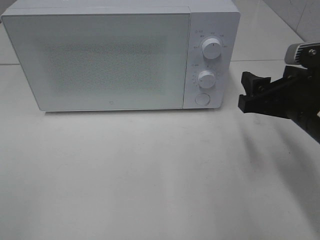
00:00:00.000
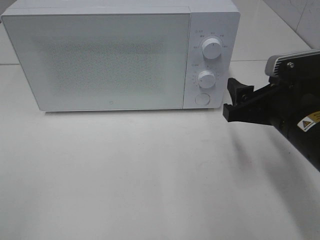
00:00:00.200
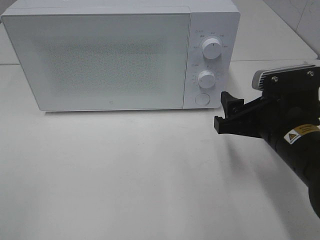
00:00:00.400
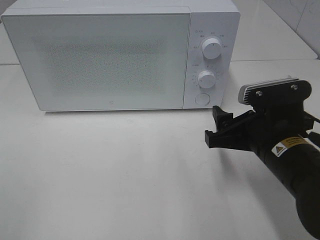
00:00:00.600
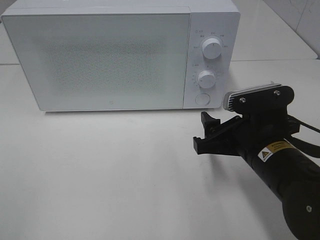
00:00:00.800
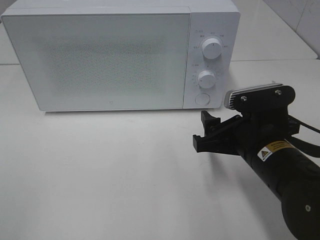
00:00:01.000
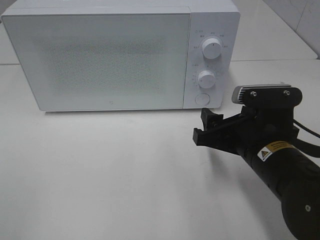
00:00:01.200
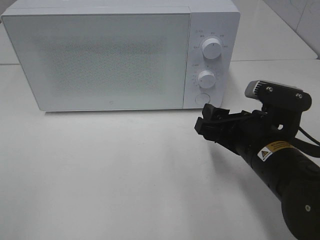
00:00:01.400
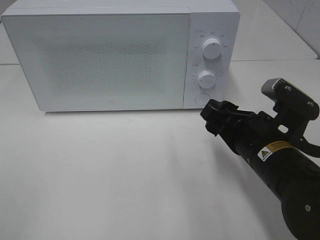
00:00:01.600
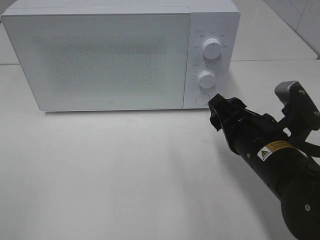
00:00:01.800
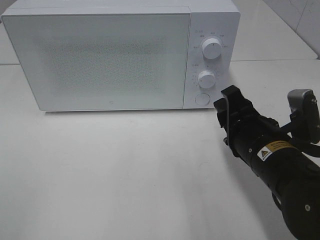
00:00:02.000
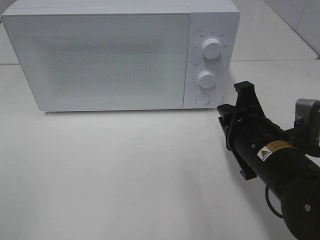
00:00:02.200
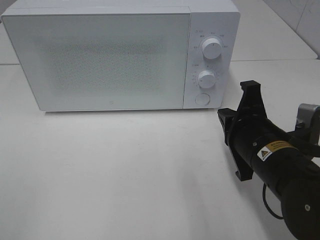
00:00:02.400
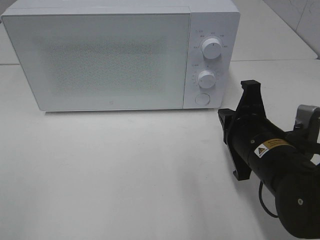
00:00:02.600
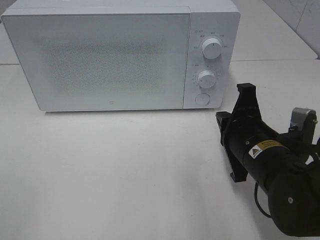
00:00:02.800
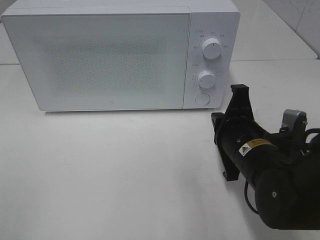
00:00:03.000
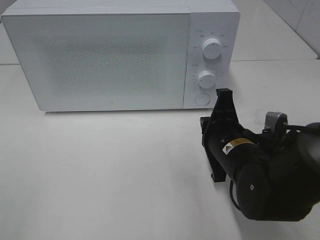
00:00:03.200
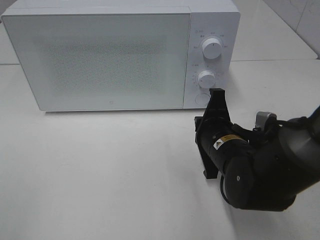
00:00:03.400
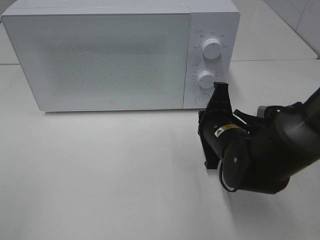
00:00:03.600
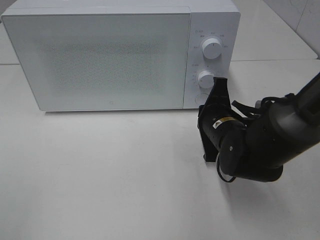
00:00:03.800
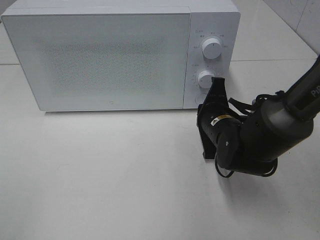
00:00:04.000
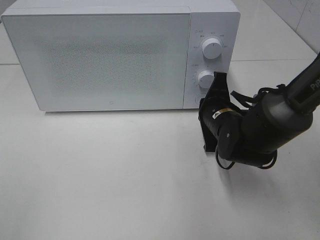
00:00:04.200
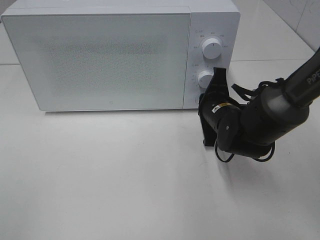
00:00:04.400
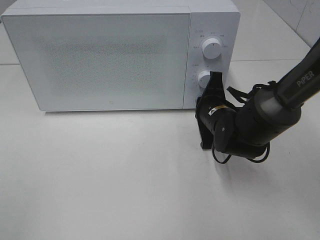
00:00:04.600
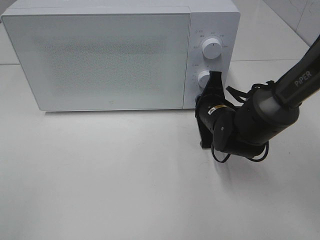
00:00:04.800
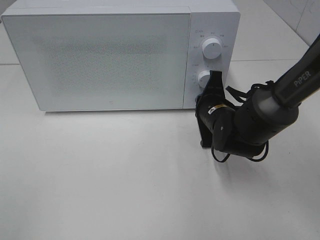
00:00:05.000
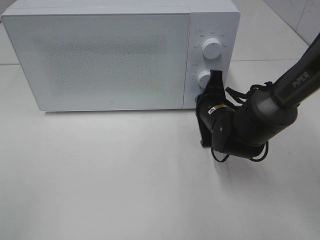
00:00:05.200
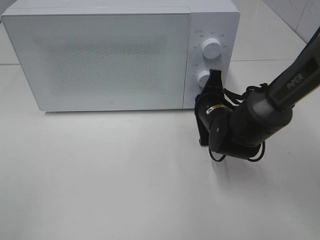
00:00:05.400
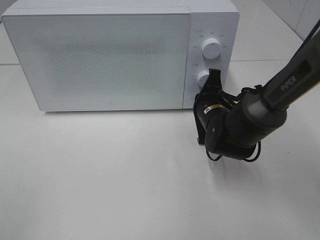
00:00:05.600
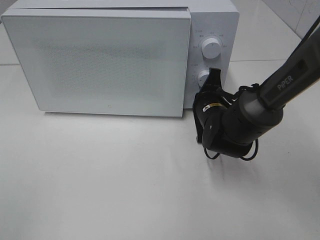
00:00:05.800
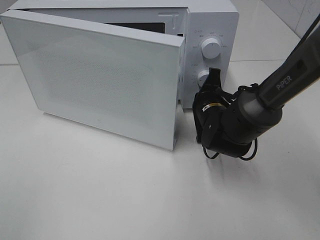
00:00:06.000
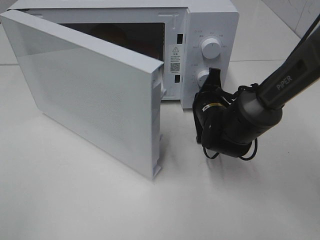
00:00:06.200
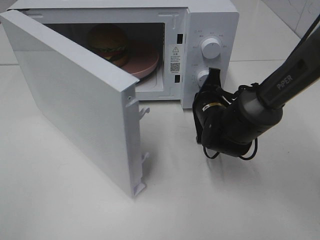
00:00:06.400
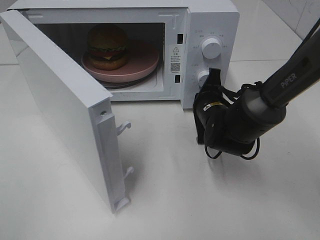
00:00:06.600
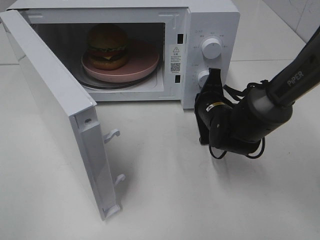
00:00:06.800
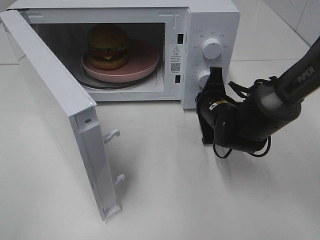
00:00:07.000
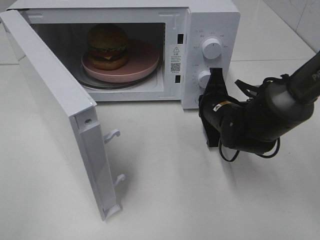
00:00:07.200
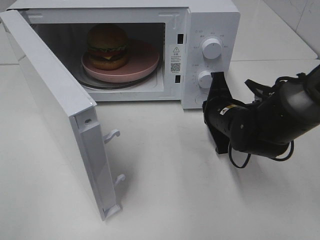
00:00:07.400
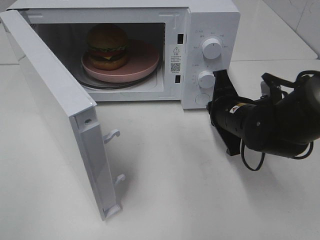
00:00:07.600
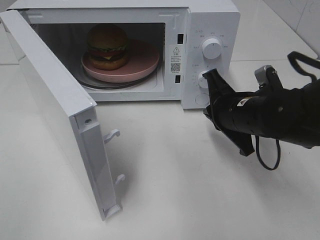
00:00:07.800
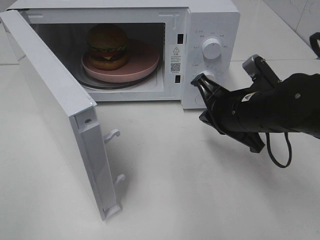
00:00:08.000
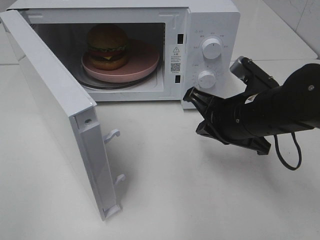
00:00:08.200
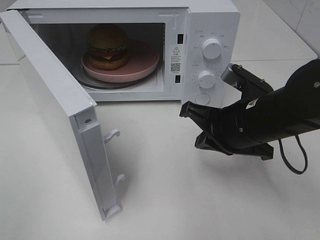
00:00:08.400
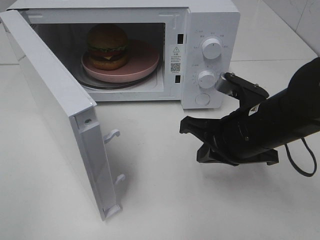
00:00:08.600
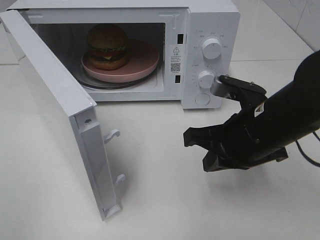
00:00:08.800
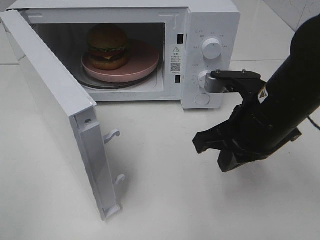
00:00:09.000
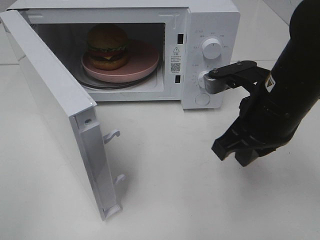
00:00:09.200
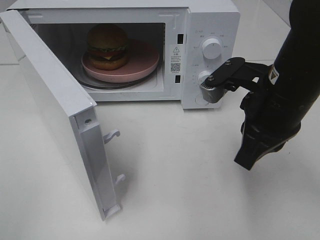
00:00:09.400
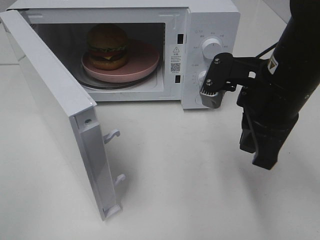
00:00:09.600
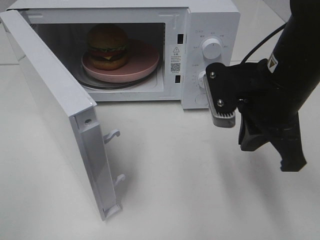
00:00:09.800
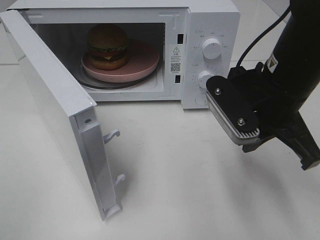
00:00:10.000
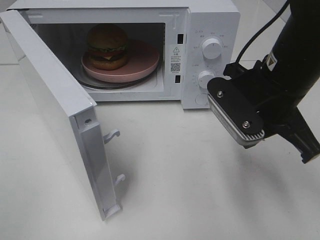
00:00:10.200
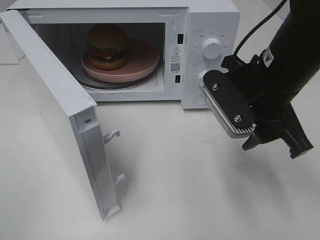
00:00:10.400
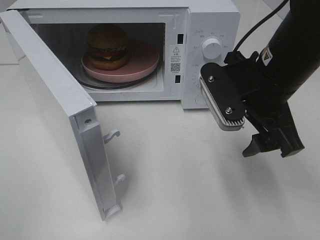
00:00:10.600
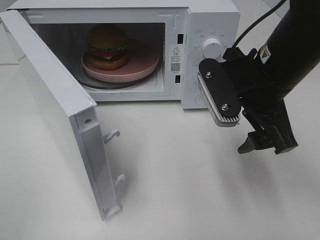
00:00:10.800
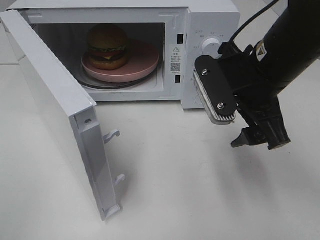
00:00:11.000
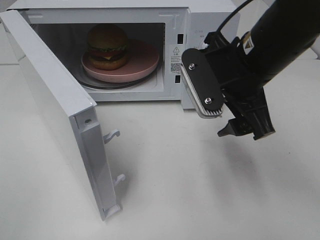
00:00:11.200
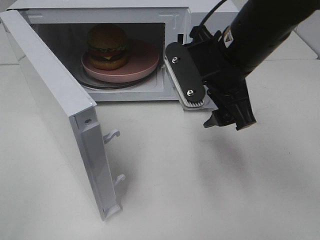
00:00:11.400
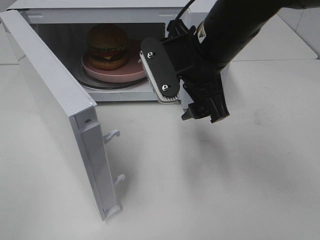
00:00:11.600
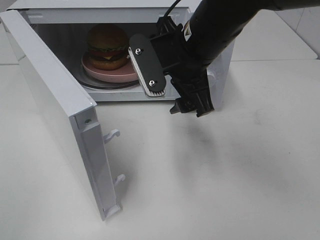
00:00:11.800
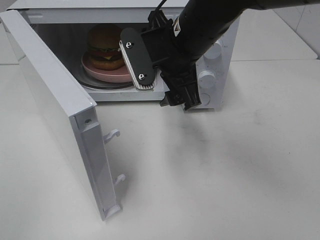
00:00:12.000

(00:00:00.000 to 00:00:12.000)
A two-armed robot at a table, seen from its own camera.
Task of the whole recording: Heat the burger.
Step, 00:00:00.000 - 00:00:07.400: Right hand: press the switch.
00:00:00.000 - 00:00:01.600: The right gripper heads to the left and downward, covering some 10 cm.
00:00:01.600 - 00:00:03.000: The right gripper closes up.
00:00:03.000 - 00:00:04.400: The right gripper heads forward, covering roughly 10 cm.
00:00:04.400 - 00:00:06.000: There are only small adjustments of the grippers.
00:00:06.000 - 00:00:07.600: The right gripper shifts about 5 cm backward.
00:00:07.600 - 00:00:09.000: The right gripper shifts roughly 10 cm upward and backward.
00:00:09.000 - 00:00:10.400: The right gripper opens its fingers.
00:00:10.400 - 00:00:12.000: The right gripper travels to the left and forward by some 10 cm.

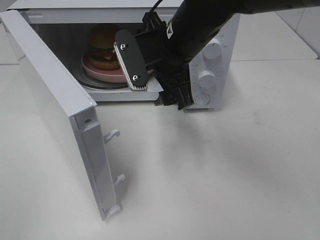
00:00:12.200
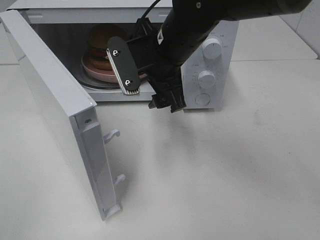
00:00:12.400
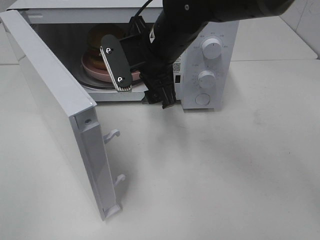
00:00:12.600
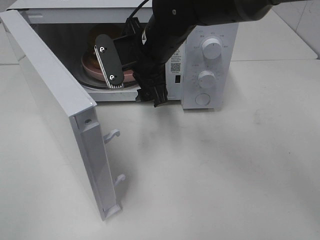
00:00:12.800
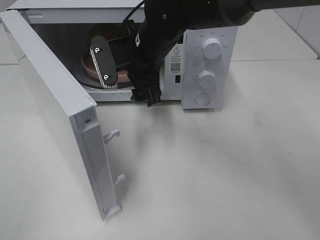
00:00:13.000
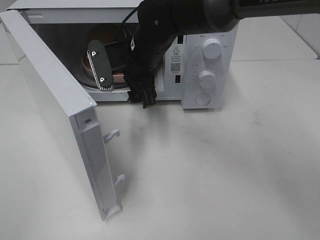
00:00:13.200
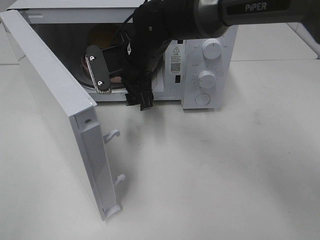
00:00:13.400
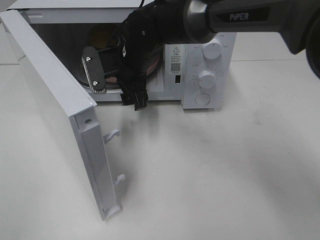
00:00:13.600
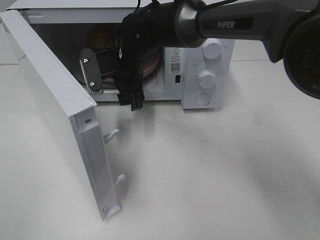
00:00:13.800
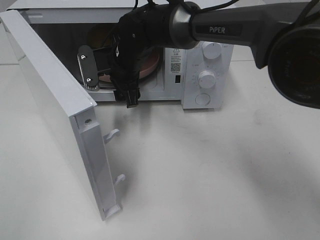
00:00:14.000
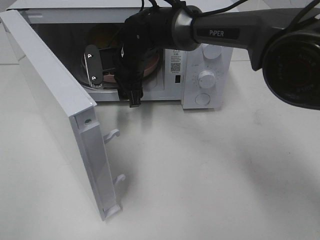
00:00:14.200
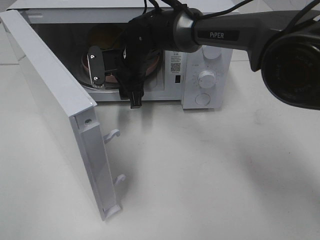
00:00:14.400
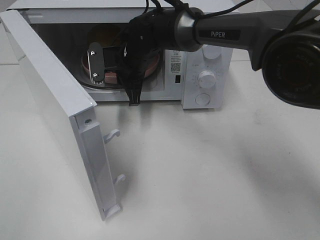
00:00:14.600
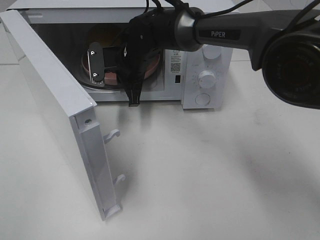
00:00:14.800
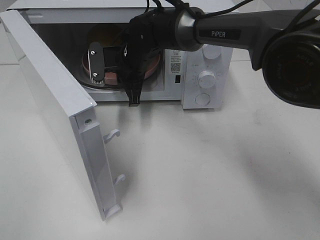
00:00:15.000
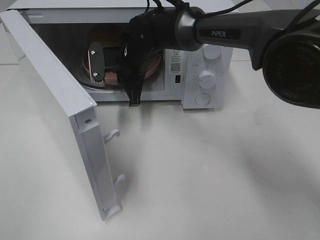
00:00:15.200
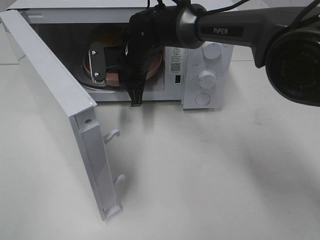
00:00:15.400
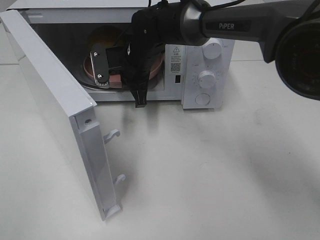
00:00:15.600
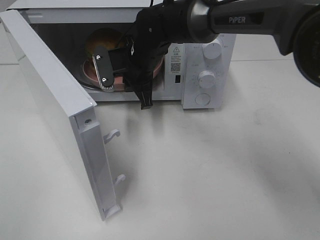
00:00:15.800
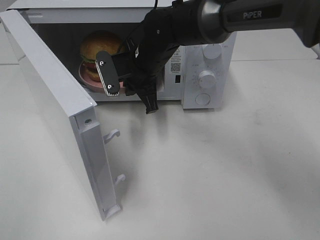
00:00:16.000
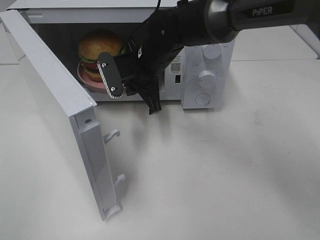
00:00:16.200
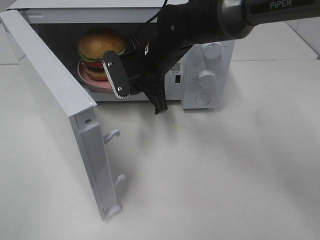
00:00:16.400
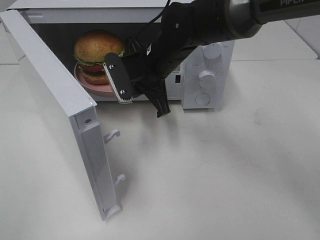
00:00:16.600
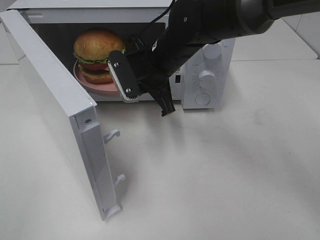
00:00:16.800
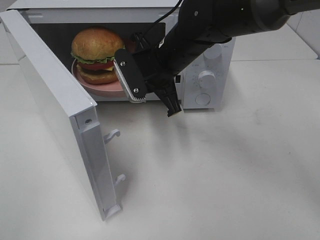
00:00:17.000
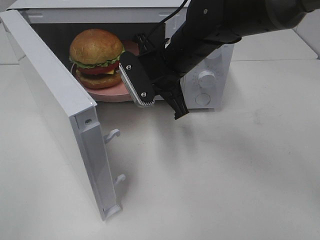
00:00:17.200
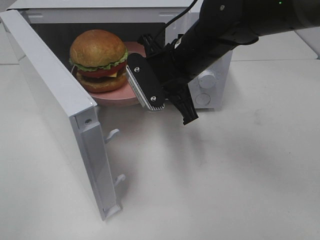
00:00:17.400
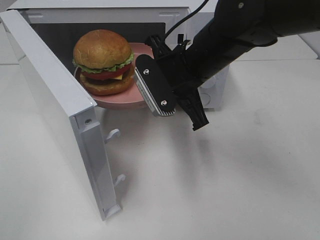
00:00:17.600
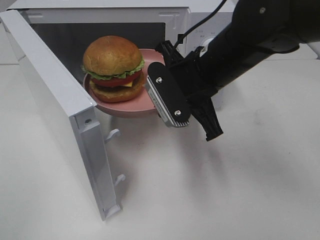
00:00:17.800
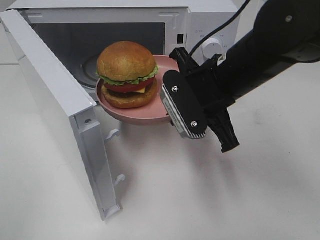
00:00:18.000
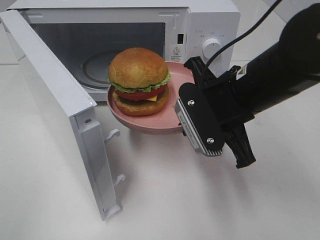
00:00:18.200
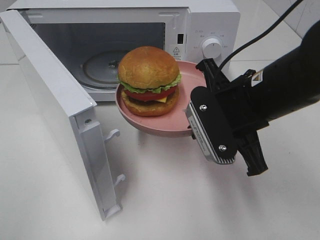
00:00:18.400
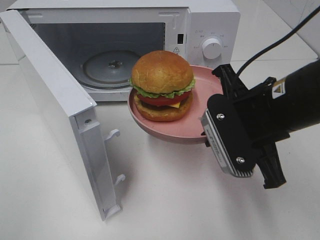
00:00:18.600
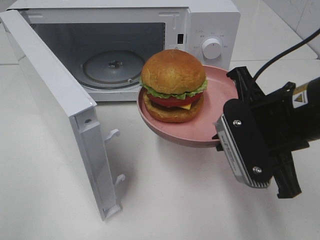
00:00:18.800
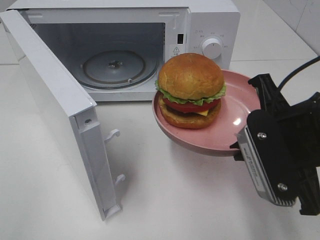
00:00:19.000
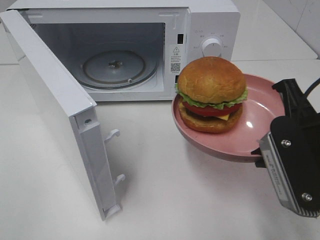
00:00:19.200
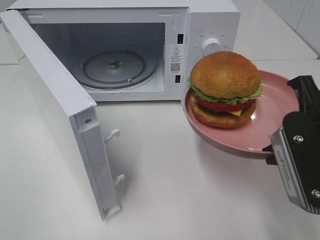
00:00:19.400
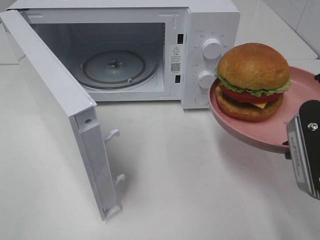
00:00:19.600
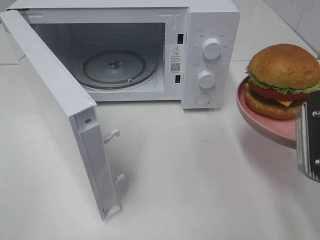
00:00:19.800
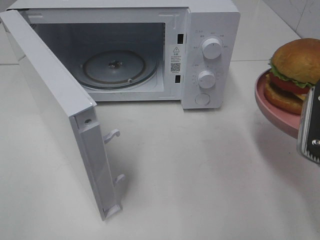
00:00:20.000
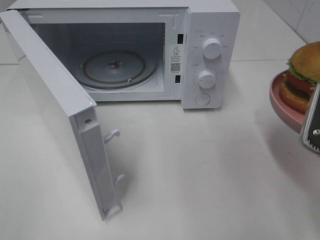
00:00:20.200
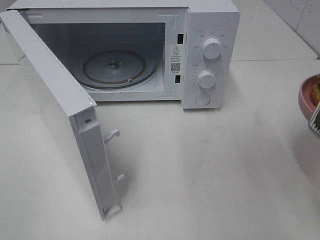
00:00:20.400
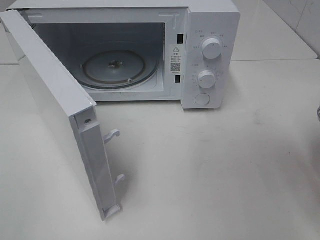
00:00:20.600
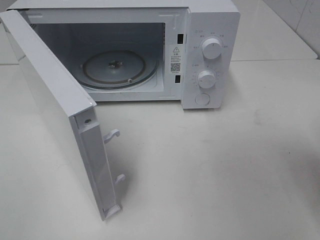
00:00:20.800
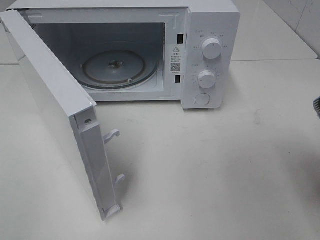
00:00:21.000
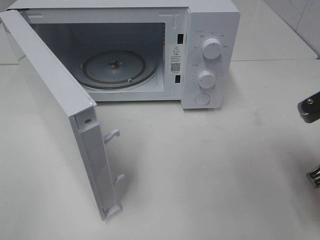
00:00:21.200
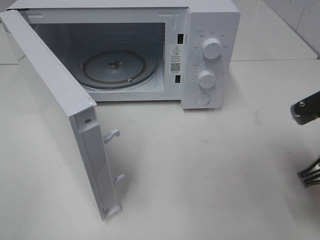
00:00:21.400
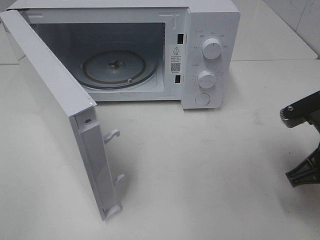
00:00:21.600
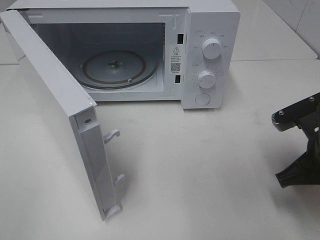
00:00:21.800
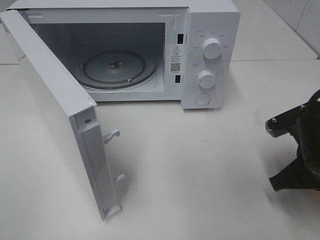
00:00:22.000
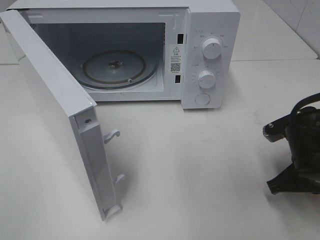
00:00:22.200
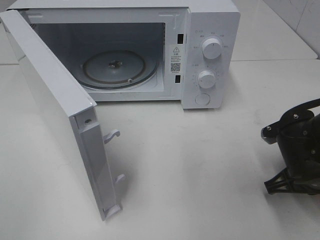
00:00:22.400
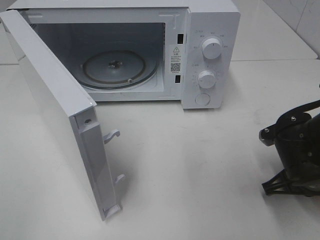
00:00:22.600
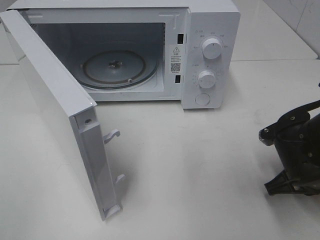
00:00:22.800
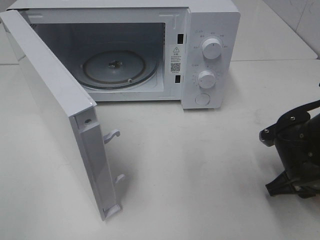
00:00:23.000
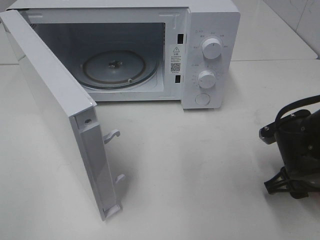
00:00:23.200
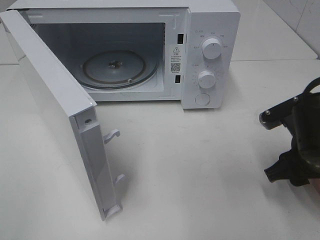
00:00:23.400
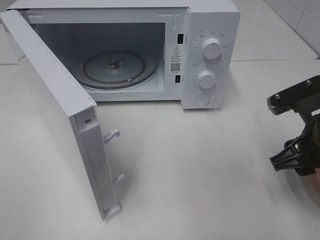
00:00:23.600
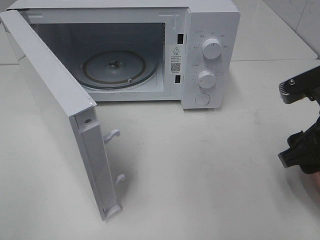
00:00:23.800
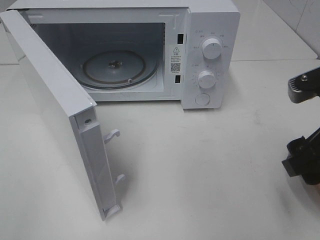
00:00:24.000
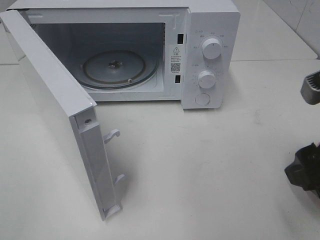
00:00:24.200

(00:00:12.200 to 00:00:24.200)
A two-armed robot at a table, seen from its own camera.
Task of the whole recording: Heat the burger.
Step, 00:00:12.200 - 00:00:15.000: Right hand: grab the plate with the hamburger.
Step, 00:00:15.200 - 00:00:23.400: Right hand: place the plate on the table.
00:00:12.200 - 00:00:13.800: The right gripper goes roughly 15 cm forward, to the left and downward.
00:00:13.800 - 00:00:15.200: The right gripper closes its fingers.
00:00:15.200 - 00:00:16.600: The right gripper goes roughly 5 cm backward.
00:00:16.600 - 00:00:18.200: The right gripper moves backward and to the right, some 15 cm.
00:00:18.200 - 00:00:19.800: The right gripper is displaced to the right and backward by some 15 cm.
00:00:19.800 - 00:00:21.200: The right gripper changes place by approximately 5 cm.
00:00:21.200 - 00:00:22.600: The right gripper moves downward, approximately 10 cm.
00:00:22.600 - 00:00:24.200: The right gripper heads upward and backward, covering approximately 15 cm, and opens.
